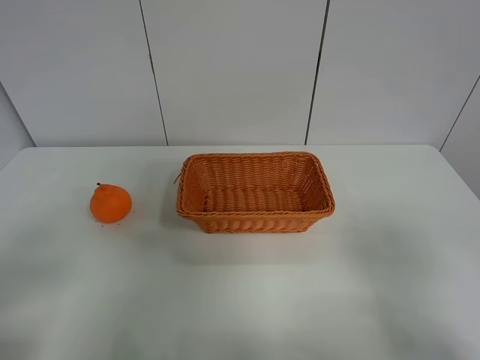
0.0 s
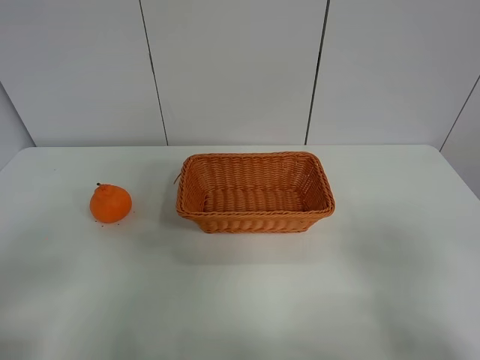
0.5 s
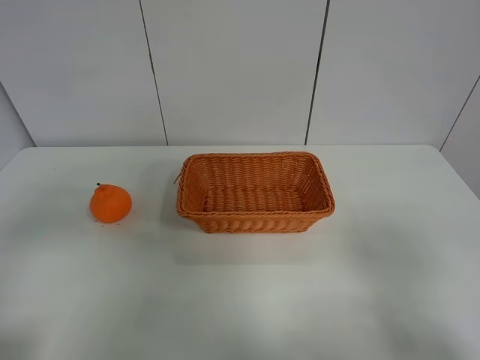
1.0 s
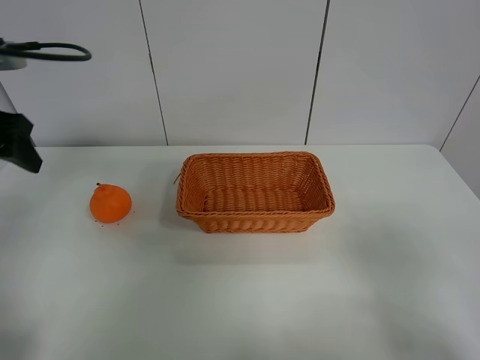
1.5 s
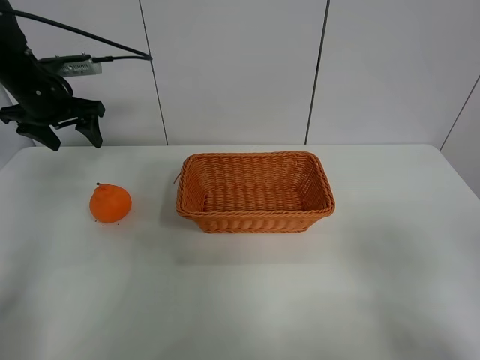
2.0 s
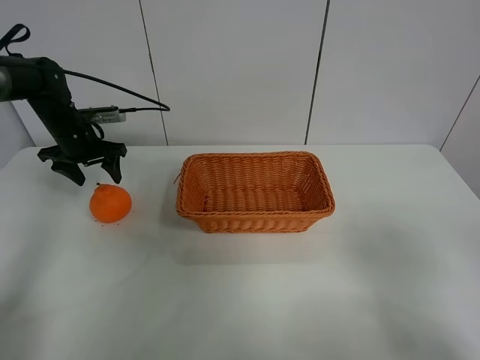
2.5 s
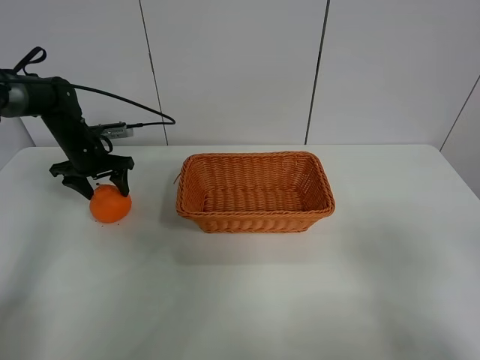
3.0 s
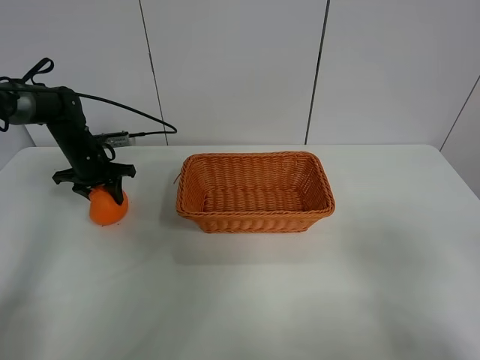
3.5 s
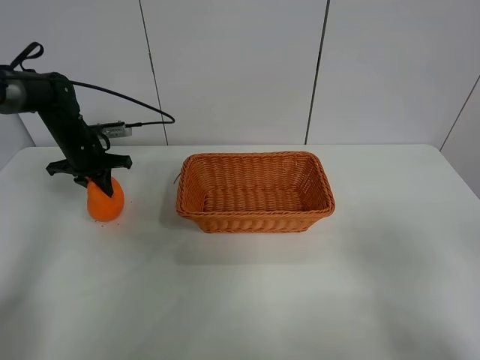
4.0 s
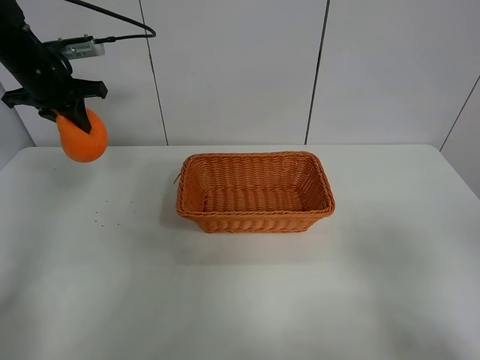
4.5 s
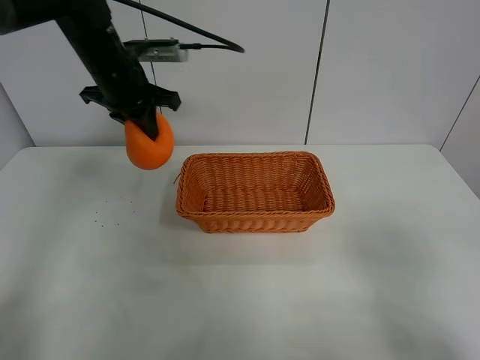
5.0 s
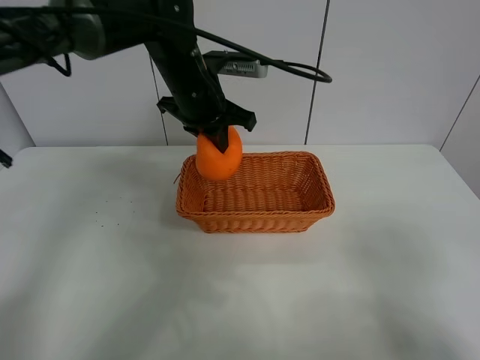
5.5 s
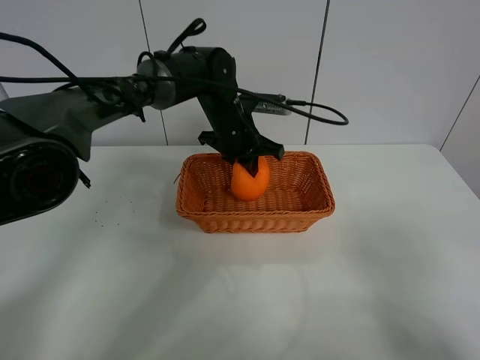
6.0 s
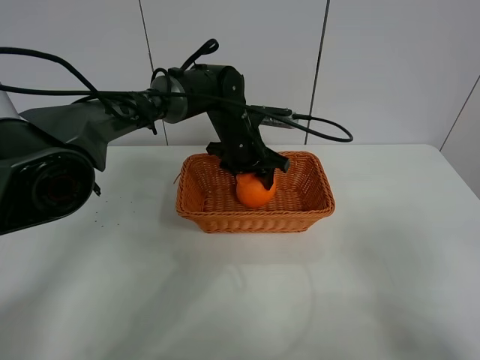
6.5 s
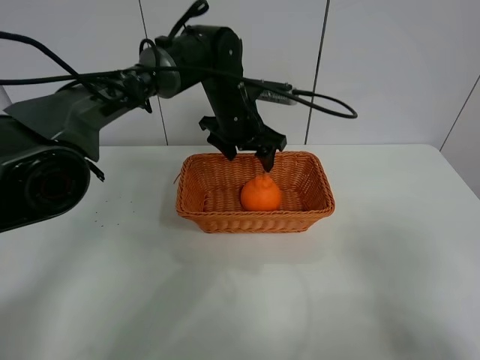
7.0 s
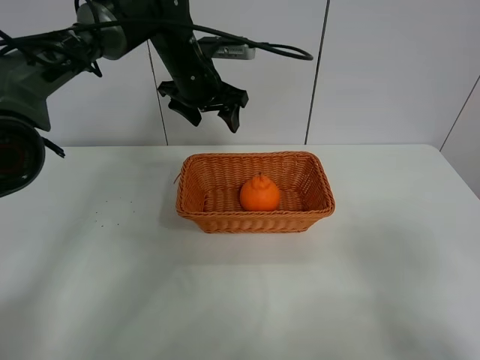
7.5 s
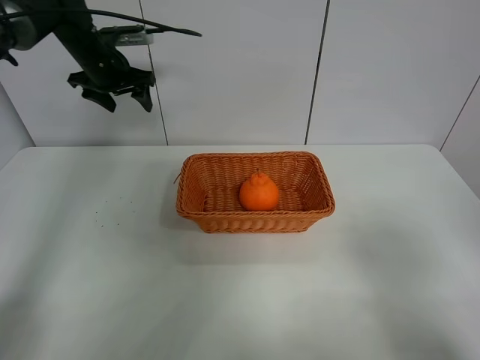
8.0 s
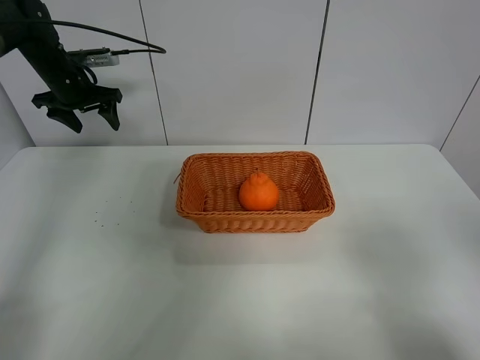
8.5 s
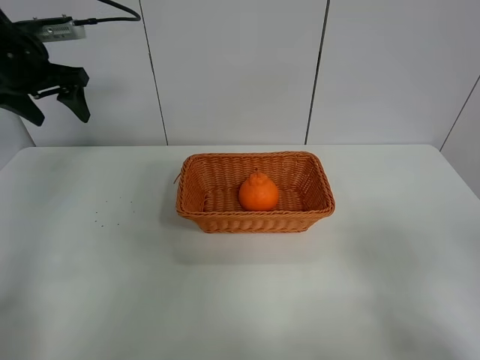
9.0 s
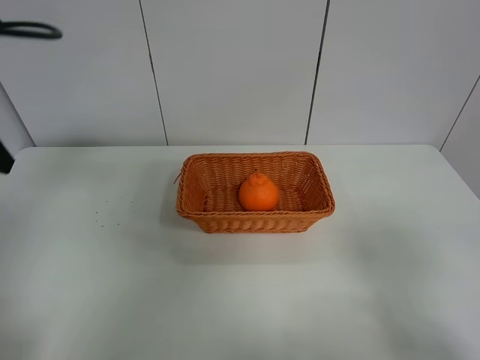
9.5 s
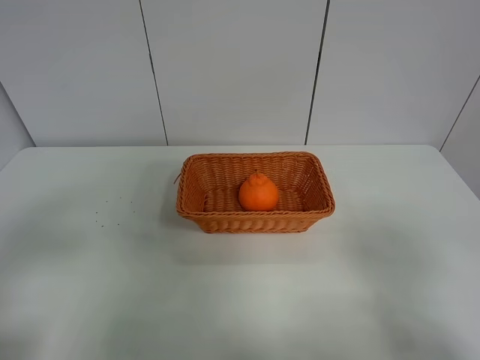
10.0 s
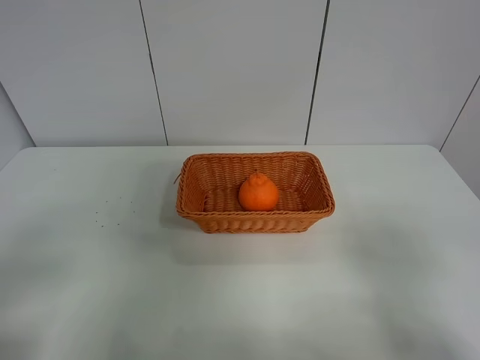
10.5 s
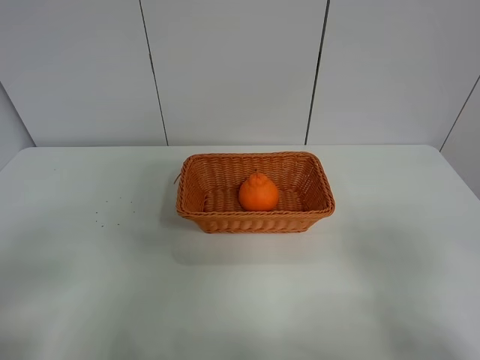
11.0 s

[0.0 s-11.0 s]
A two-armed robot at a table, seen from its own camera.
Task of the whole recording: left gripper grabs oranges and puts them in the basket.
Step, 0.0 to 3.5 s: Grasp the orange with left gripper.
Step, 4.0 to 7.5 s: Place the orange in the basket with left gripper.
0.0 to 2.0 s: The left gripper shifts some 40 cm forward.
2.0 to 3.5 s: The left gripper shifts approximately 15 cm downward, and closes its fingers.
3.5 to 5.5 s: The left gripper shifts roughly 30 cm to the right and upward.
5.5 to 7.5 s: The left gripper heads forward, covering about 5 cm, travels downward and back again, roughly 10 cm each way, and opens up.
7.5 to 9.0 s: The left gripper heads to the left, covering about 20 cm.
9.0 to 11.0 s: The left gripper shifts some 40 cm backward.
